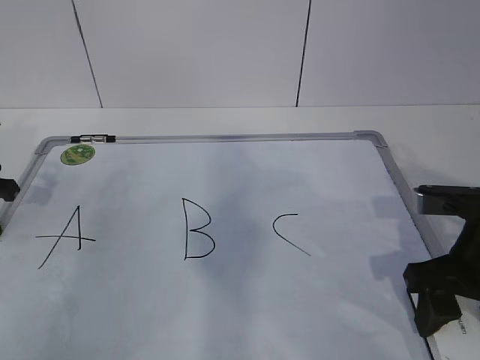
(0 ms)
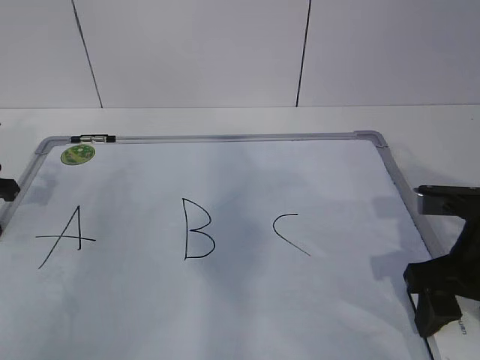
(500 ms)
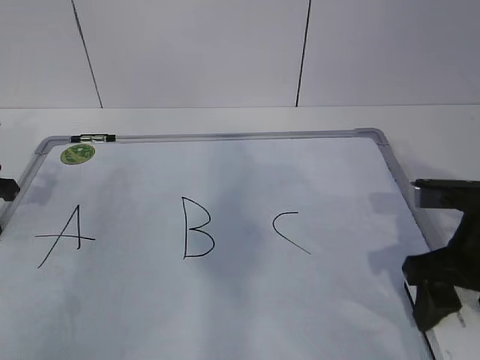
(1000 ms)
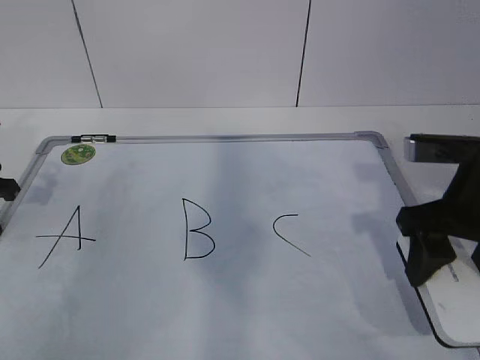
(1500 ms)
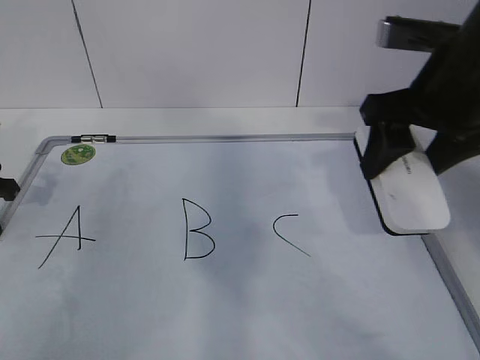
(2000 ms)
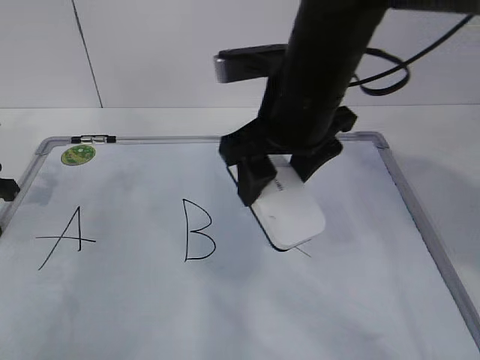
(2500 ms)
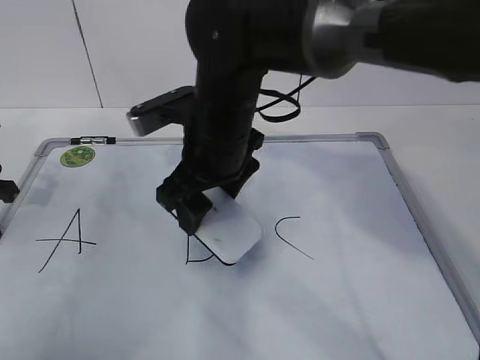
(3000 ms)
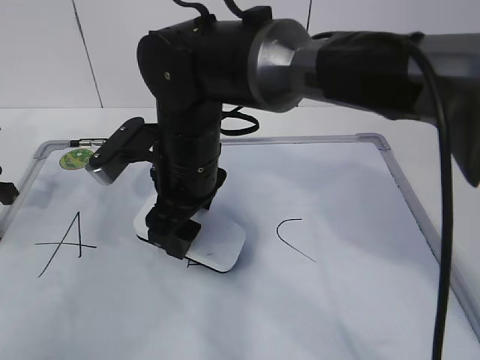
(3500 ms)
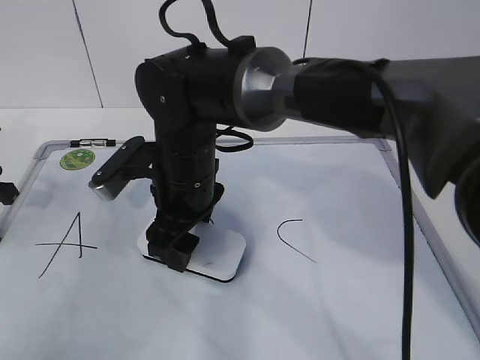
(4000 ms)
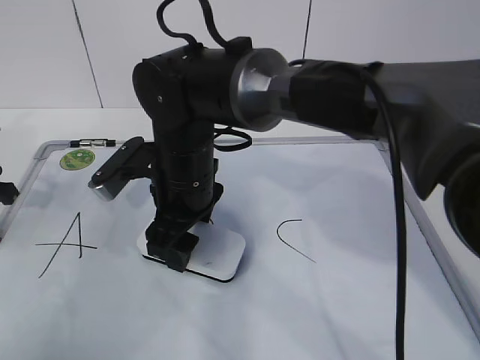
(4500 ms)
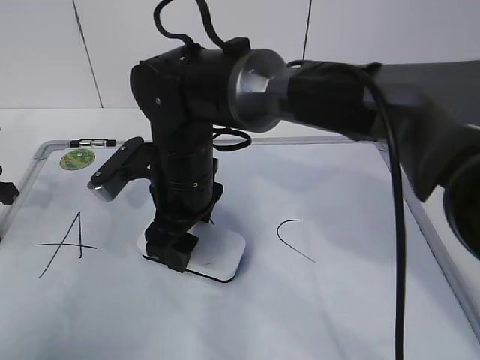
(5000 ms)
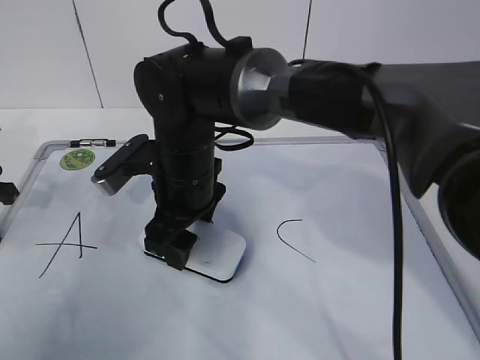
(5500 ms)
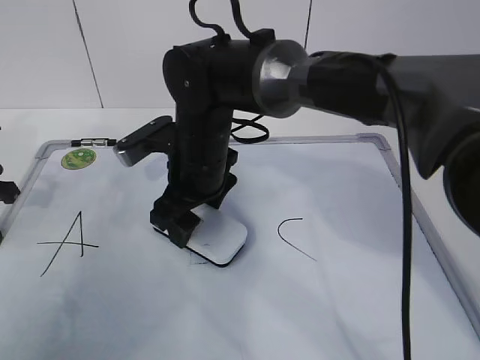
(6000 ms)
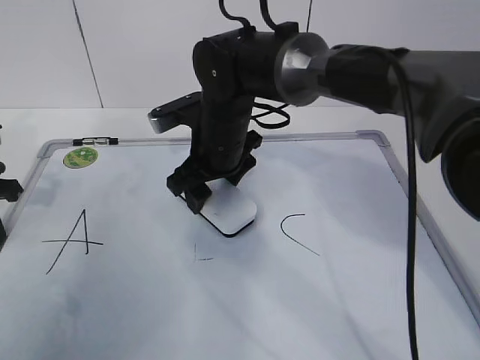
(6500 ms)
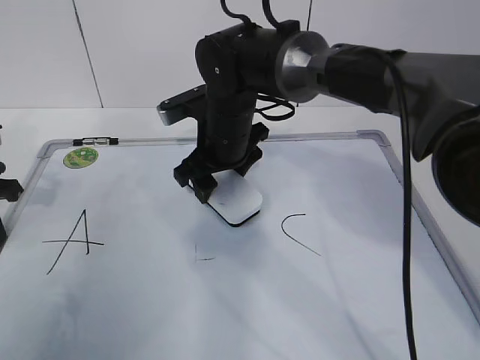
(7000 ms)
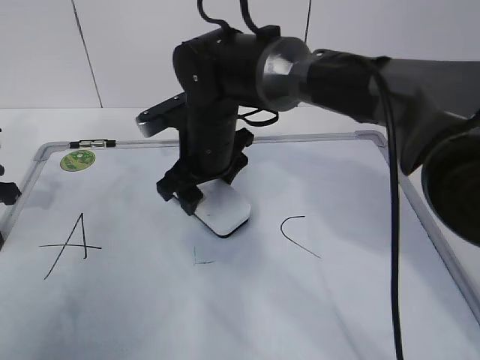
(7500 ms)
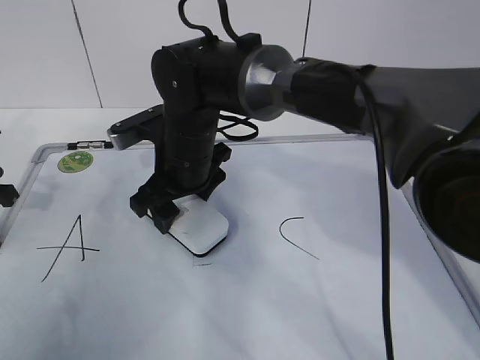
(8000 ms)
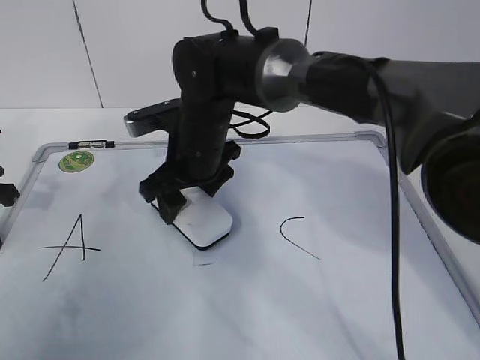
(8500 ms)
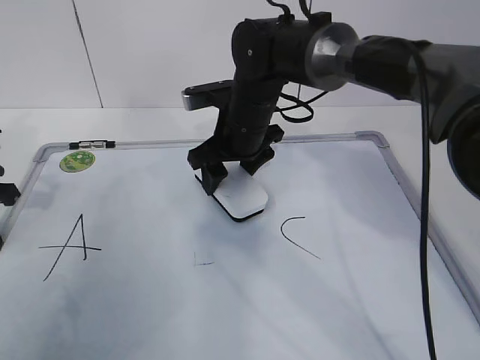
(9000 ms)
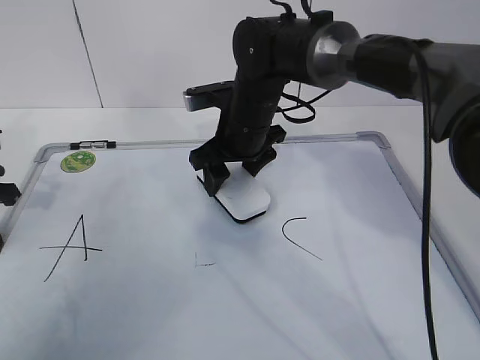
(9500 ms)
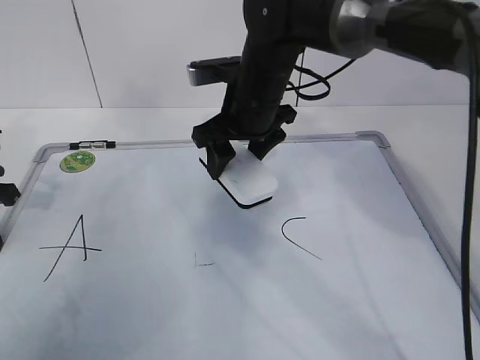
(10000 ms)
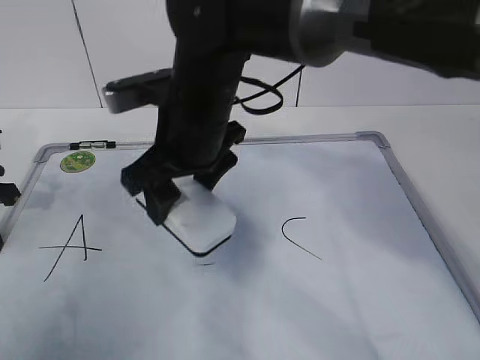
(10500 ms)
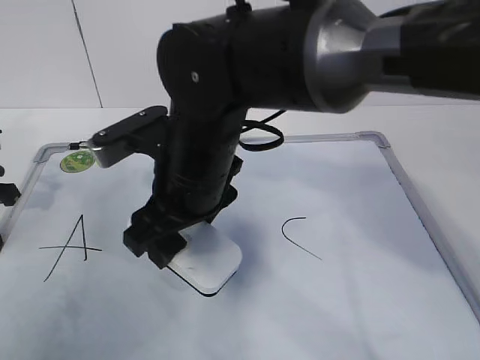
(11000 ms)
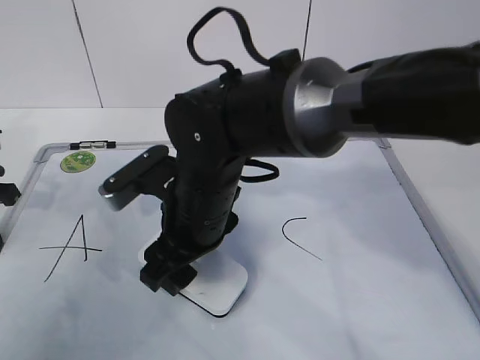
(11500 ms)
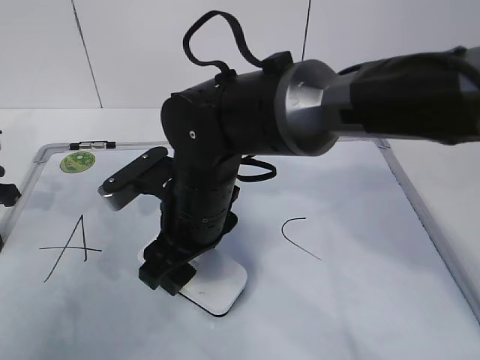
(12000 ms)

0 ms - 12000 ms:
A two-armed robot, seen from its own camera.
Task of the whole recording: pick up the eraser on the blackboard and erase the letter "B".
0 ms - 2000 ms: The right gripper travels upward and forward by some 15 cm.
2000 ms - 4000 ms: The right gripper goes some 25 cm to the left and downward.
4000 ms - 6000 ms: The grippers stay close to where they were, moving slightly.
6000 ms - 8000 ms: The grippers make only small movements.
8000 ms - 10000 ms: The right gripper moves to the right and upward, approximately 10 cm.
10000 ms - 12000 ms: The right gripper shifts roughly 15 cm backward, to the left and downward.

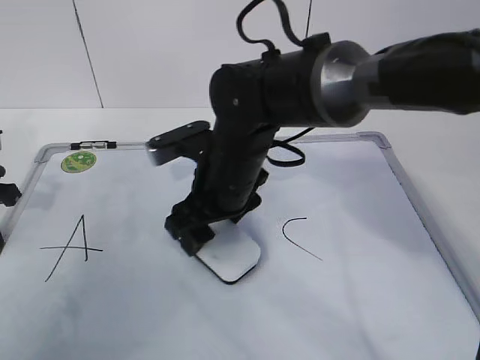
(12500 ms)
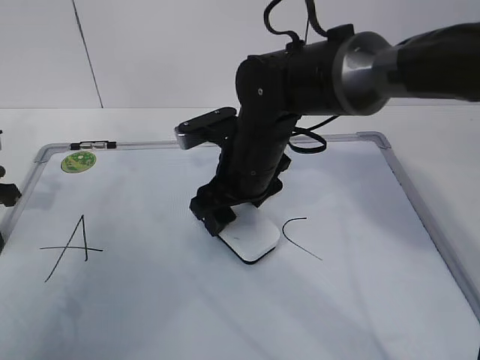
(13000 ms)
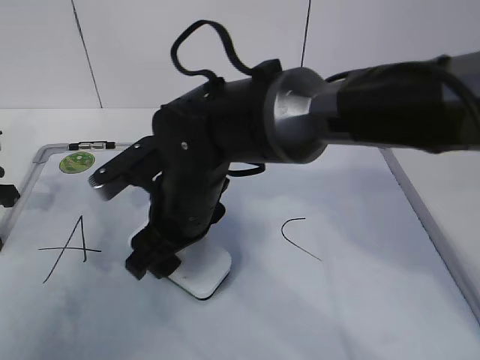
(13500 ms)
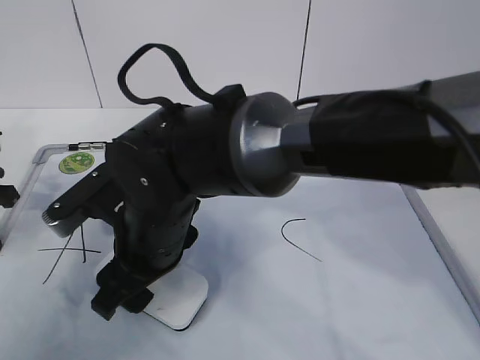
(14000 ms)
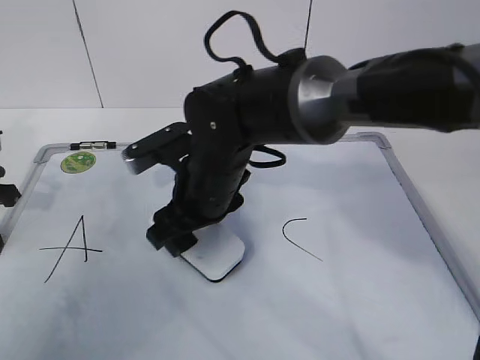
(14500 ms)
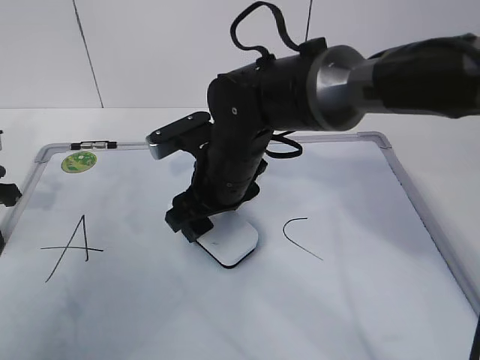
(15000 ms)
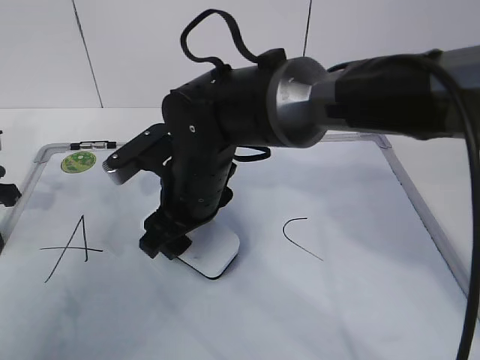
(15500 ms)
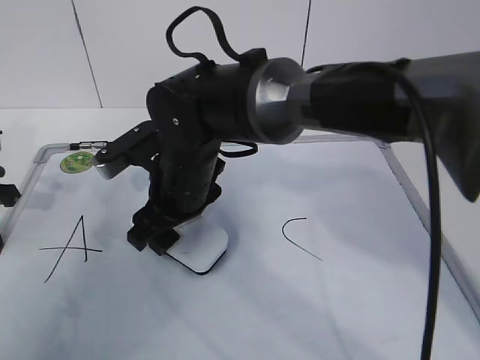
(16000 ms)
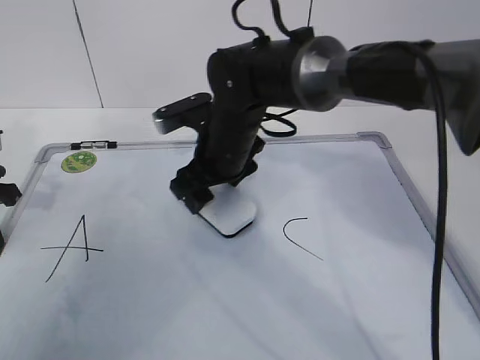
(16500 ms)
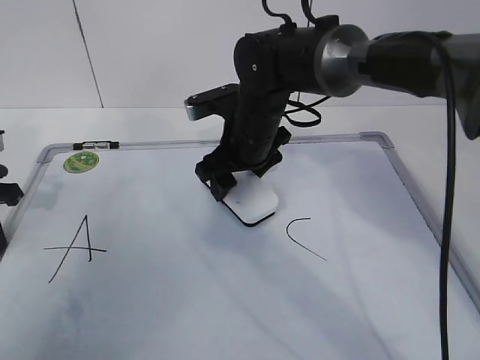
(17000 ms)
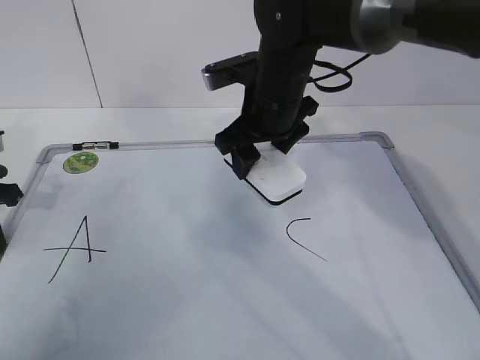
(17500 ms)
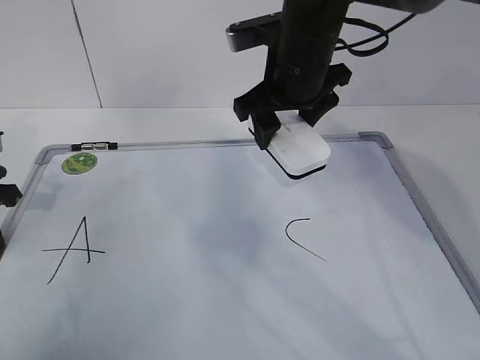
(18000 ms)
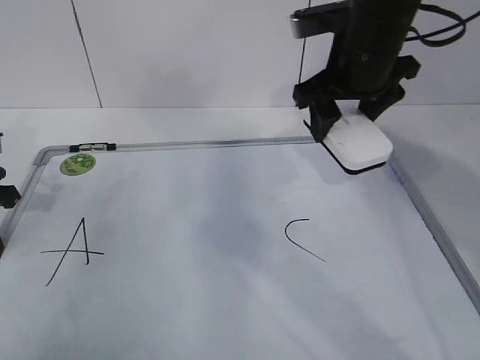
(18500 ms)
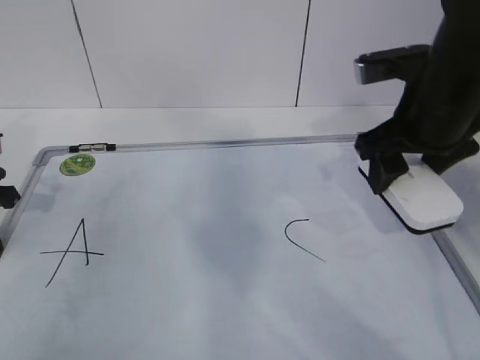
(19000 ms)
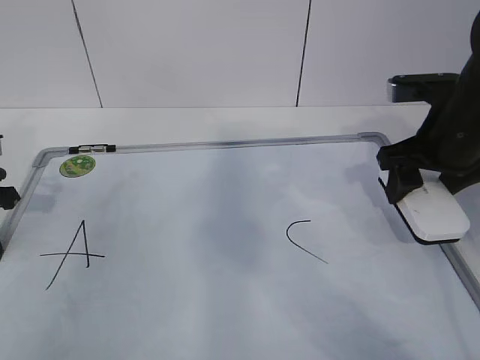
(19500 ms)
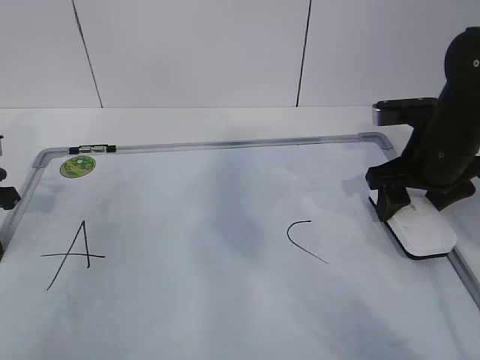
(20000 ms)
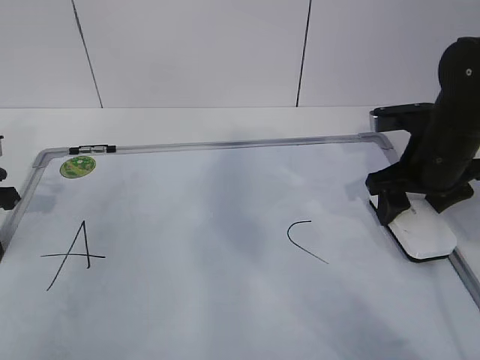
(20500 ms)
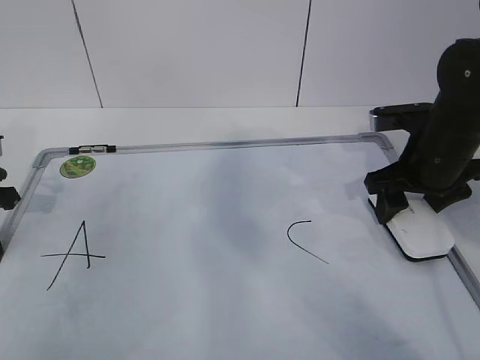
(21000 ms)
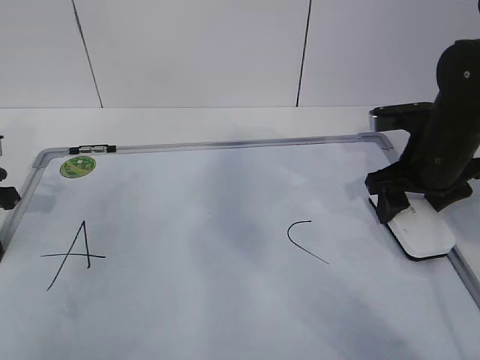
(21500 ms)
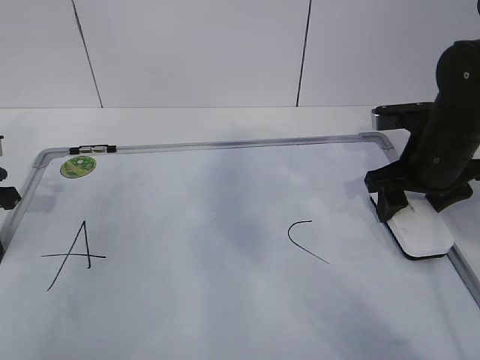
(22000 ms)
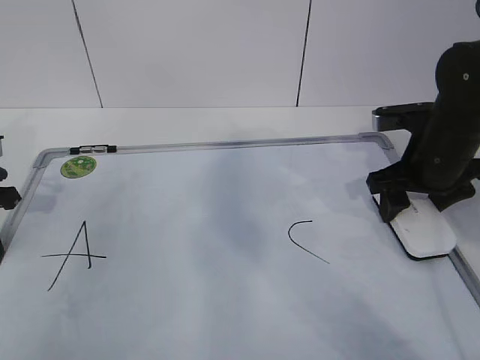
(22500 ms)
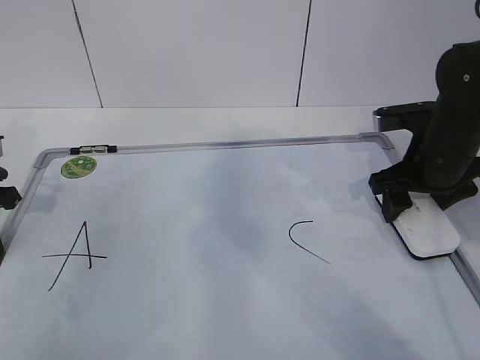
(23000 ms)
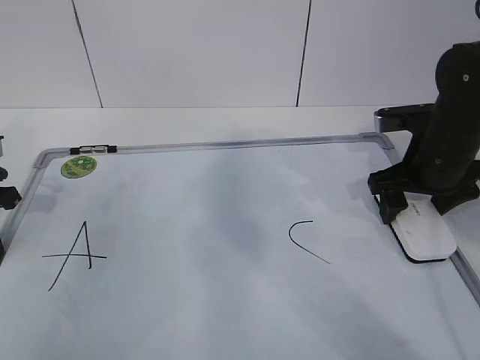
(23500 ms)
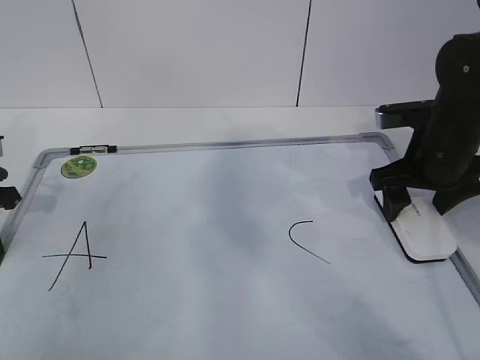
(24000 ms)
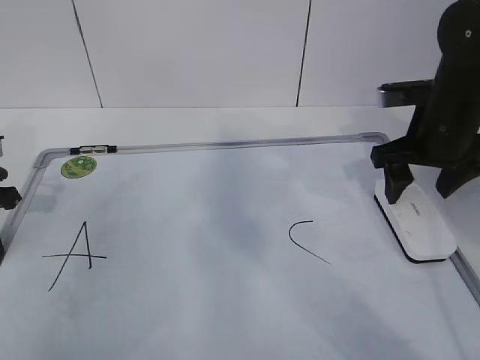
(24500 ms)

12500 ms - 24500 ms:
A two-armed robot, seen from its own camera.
Task of the whole recording: pick up the eraser on the blackboard and erase the letter "B".
Step, 12500 ms - 17500 ms: Put down the eraser with your right hand.
12500 ms - 14500 ms: The right gripper reaches approximately 10 cm to the left, then returns.
14500 ms - 16500 ms: The right gripper travels forward by some 5 cm.
16500 ms - 18500 ms: The right gripper shifts roughly 20 cm to the right and upward.
18500 ms - 20500 ms: The right gripper travels downward and to the right by some 15 cm.
20500 ms - 22500 ms: Neither gripper changes place.
22500 ms - 24500 ms: The grippers stay close to where they were, moving slightly.

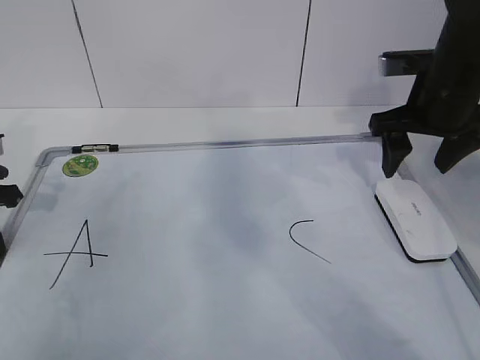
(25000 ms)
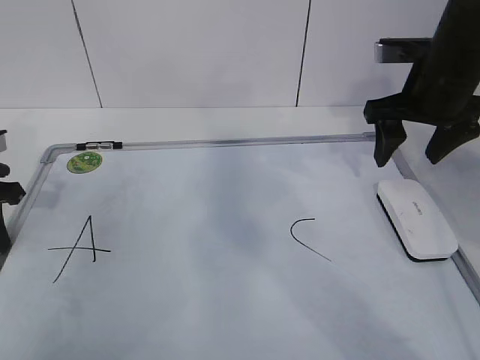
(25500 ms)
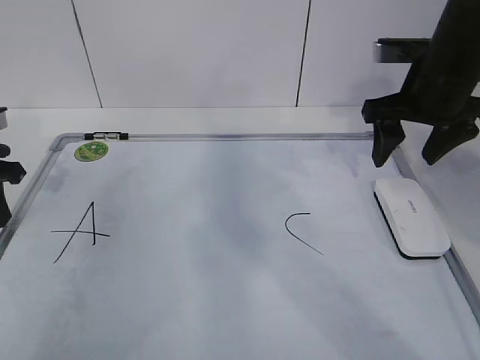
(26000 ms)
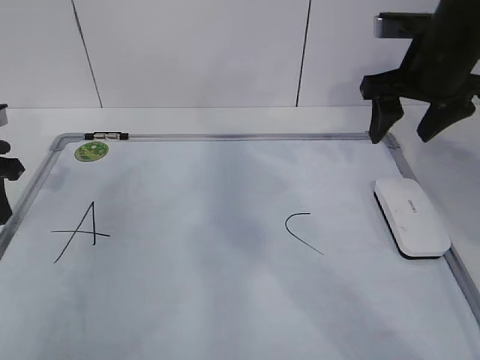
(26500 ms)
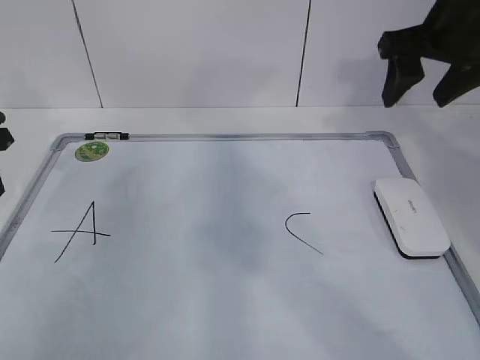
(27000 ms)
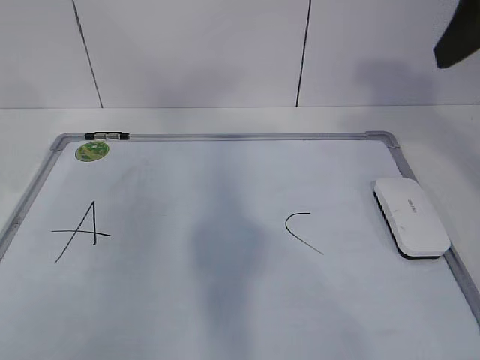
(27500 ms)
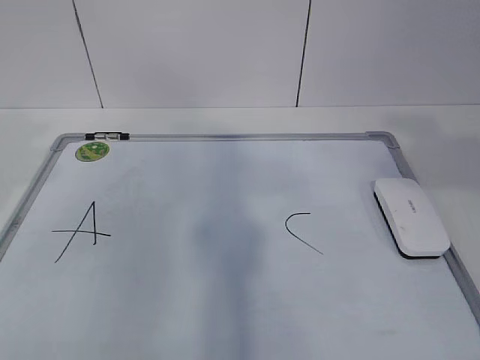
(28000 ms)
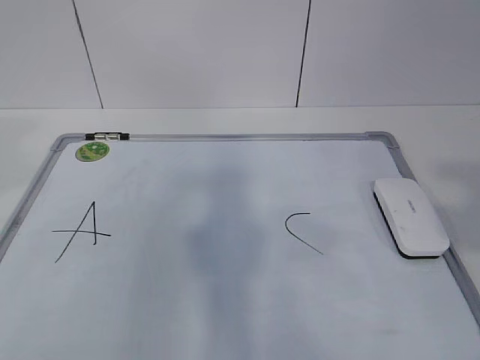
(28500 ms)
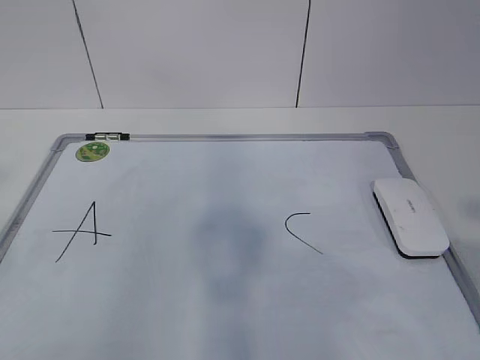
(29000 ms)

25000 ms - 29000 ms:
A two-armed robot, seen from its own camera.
Task of the whole recording: pick up the eraser on the blackboard and erase the letter "B".
25000 ms - 27000 ms: The right gripper travels upward by roughly 10 cm; the left gripper moves upward, about 5 cm, and opens its fingers.
27000 ms - 29000 ms: The right gripper travels backward by some 35 cm. Meanwhile the left gripper travels backward and upward by some 35 cm, and closes, then opens again.
